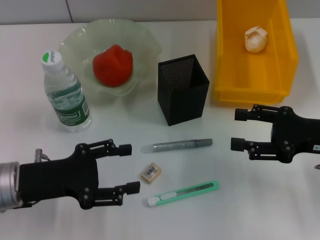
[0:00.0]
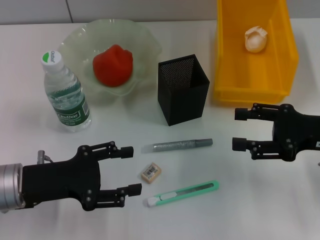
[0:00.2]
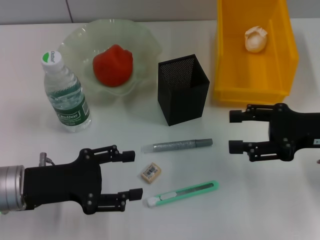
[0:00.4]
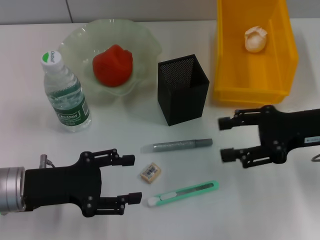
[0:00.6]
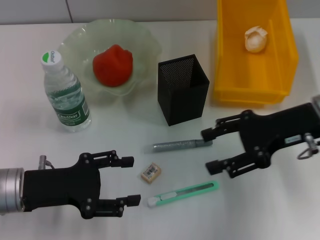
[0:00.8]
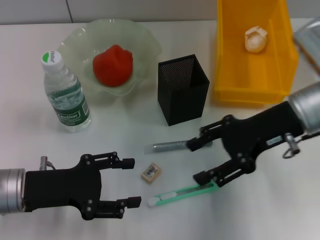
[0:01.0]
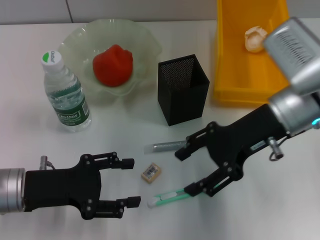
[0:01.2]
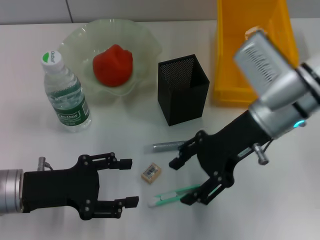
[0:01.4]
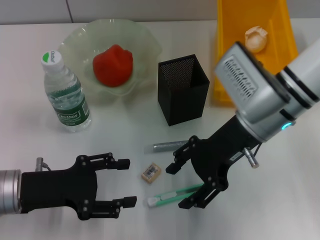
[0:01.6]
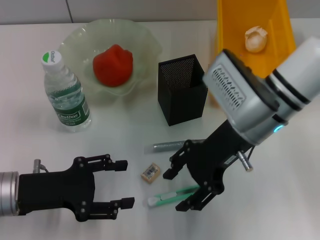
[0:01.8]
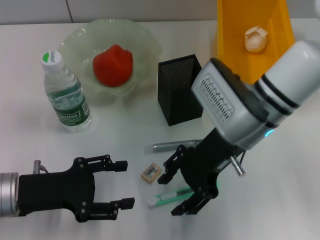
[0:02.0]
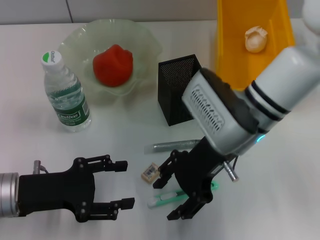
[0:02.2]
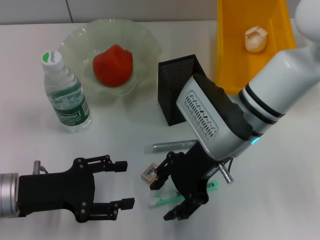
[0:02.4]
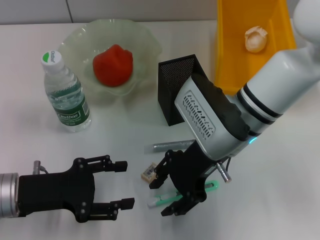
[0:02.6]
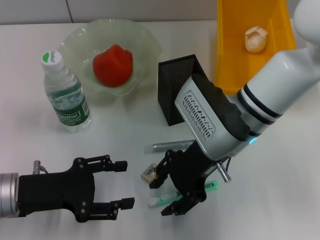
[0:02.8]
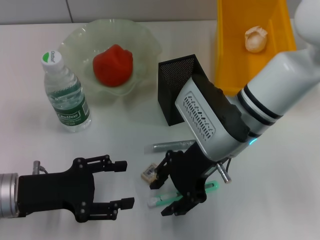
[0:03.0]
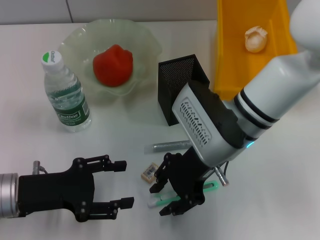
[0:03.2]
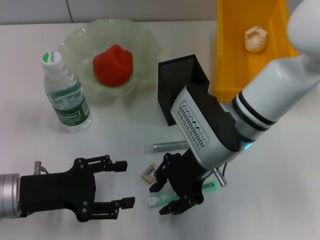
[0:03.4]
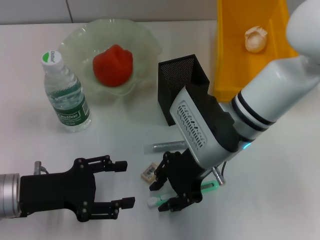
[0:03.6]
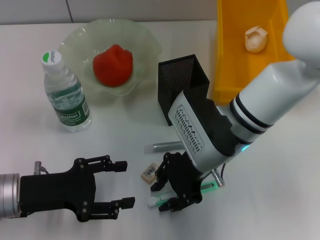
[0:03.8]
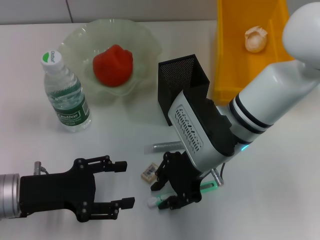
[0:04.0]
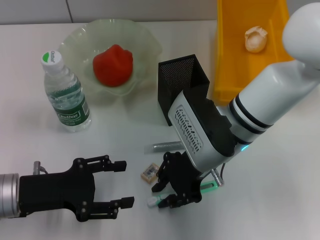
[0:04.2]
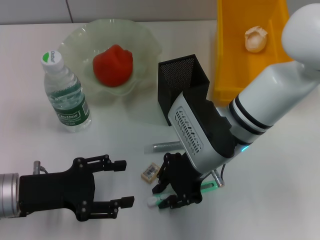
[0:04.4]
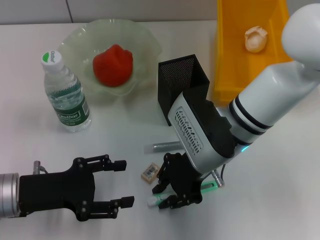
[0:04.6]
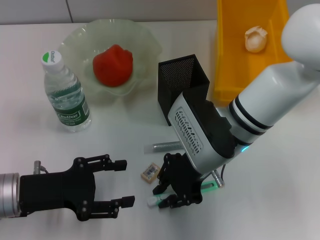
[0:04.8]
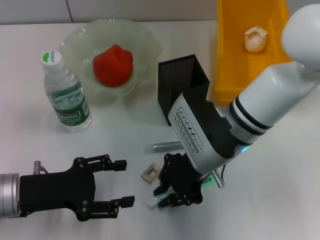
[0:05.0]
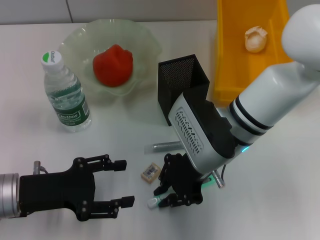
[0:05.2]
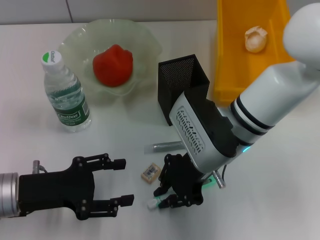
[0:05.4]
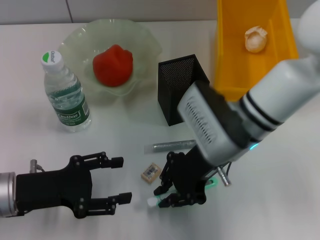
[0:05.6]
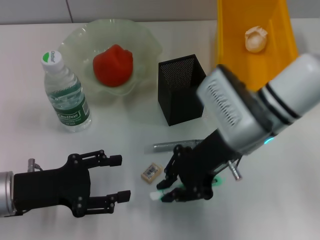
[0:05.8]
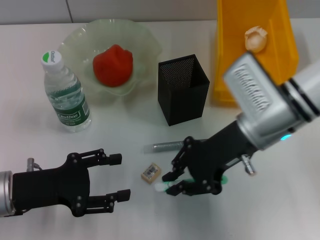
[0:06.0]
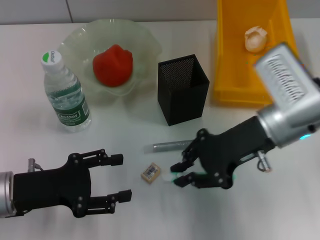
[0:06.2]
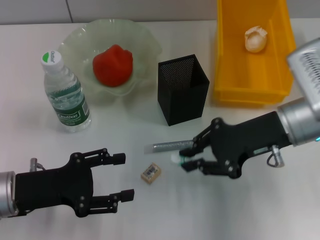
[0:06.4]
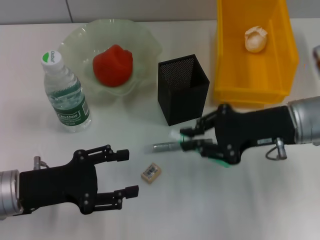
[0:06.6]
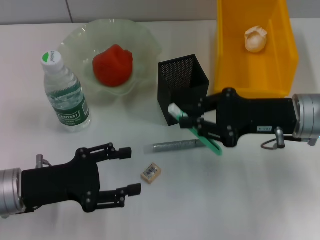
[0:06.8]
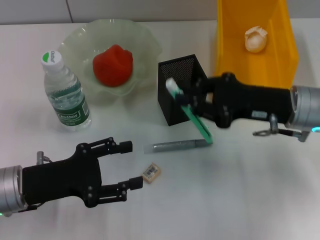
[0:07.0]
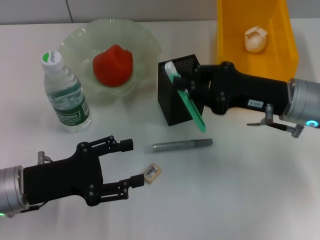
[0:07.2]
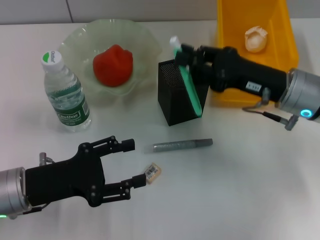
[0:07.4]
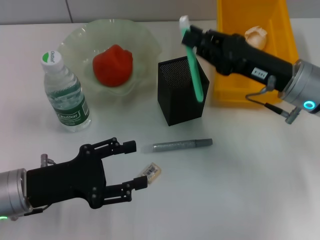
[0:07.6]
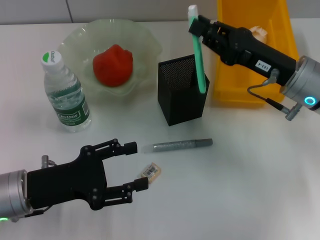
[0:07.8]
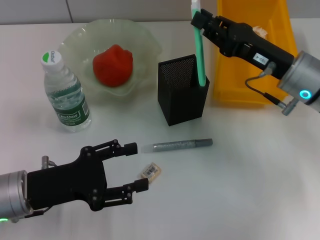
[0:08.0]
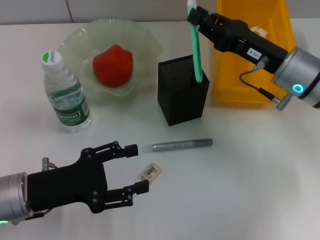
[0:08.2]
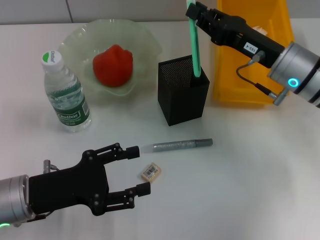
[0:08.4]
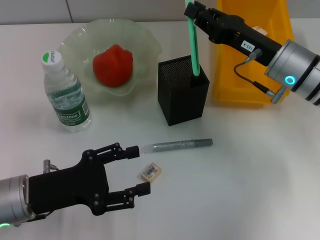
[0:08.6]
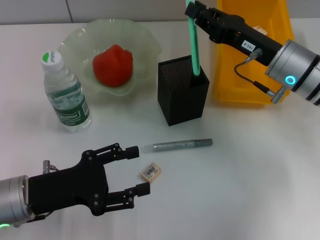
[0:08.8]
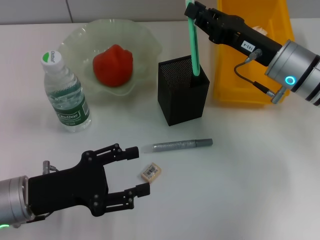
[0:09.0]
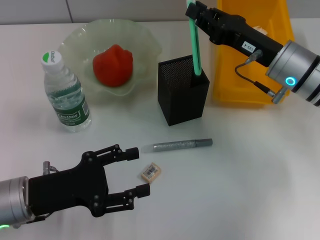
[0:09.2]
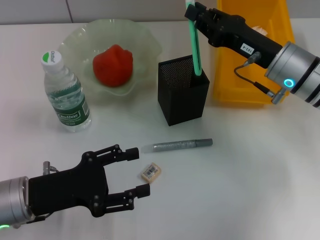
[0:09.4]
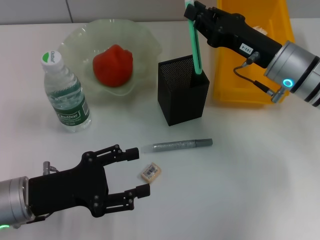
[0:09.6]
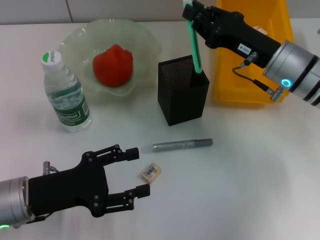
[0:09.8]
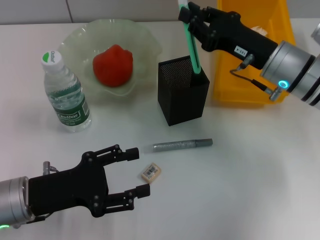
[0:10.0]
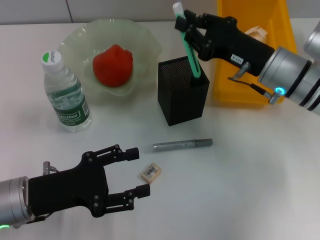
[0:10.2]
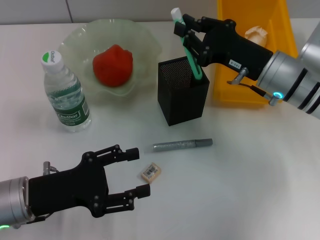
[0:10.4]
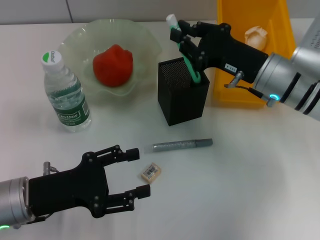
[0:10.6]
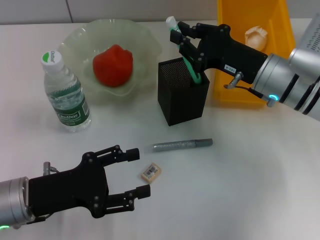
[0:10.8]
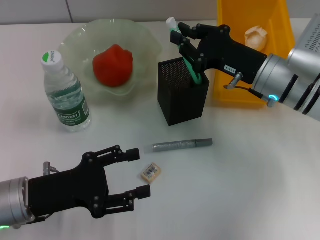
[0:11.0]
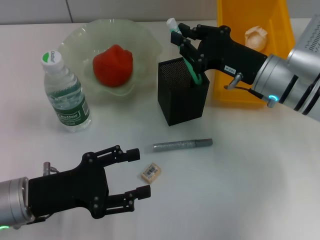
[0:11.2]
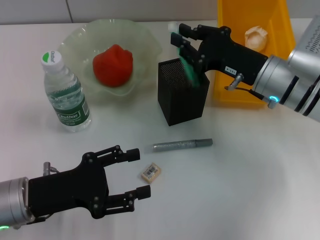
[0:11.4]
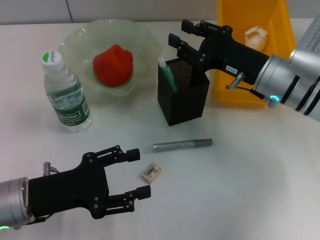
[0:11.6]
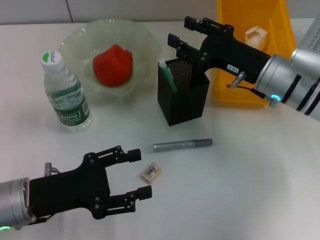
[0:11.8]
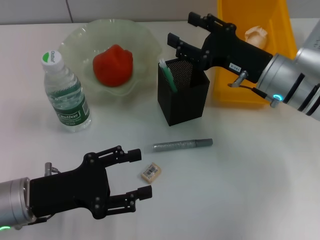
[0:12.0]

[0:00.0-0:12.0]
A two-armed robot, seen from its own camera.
Step, 0:00.0 to 0:05.4: Grab the blue utility knife with the right hand.
Step, 0:05.6 to 0:11.6: Place the blue utility knife into the pen holder with the right hand.
0:00.0 to 0:01.6: The right gripper goes about 15 cm to the left.
0:01.6 to 0:03.0: The grippers stay close to where they were, moving slightly.
0:03.0 to 0:04.4: The right gripper closes its fingers.
0:04.4 to 0:06.0: The right gripper shifts approximately 5 cm to the right.
0:06.0 to 0:07.6: The right gripper shifts some 5 cm to the right.
0:07.6 to 0:09.0: The grippers stay close to where they were, moving slightly.
0:10.4 to 0:12.0: The right gripper opens up.

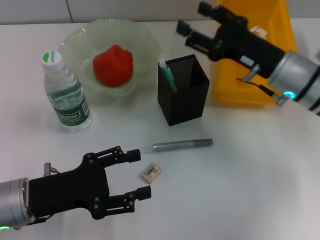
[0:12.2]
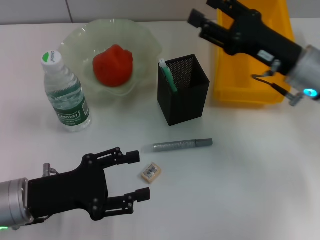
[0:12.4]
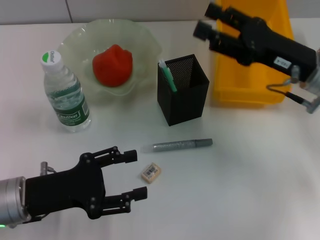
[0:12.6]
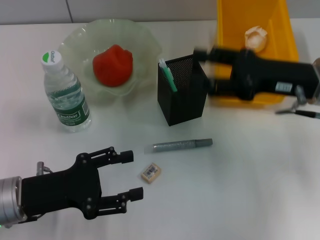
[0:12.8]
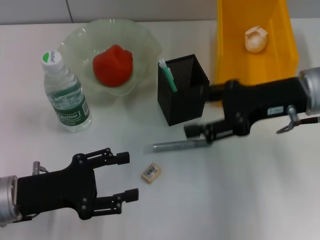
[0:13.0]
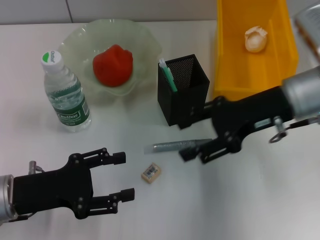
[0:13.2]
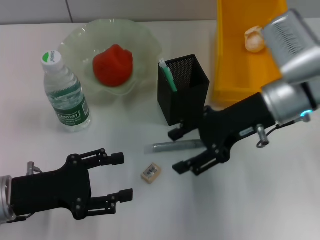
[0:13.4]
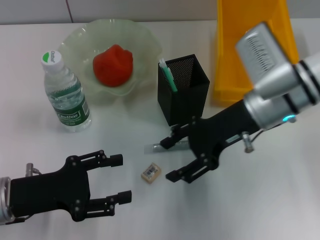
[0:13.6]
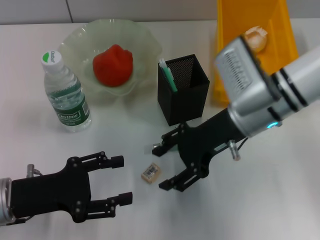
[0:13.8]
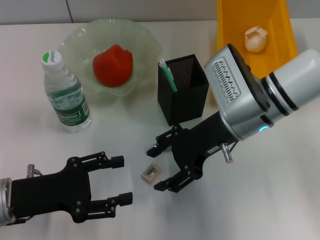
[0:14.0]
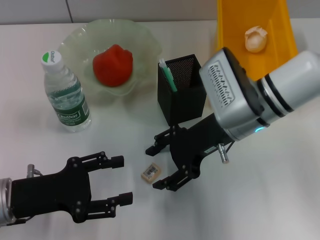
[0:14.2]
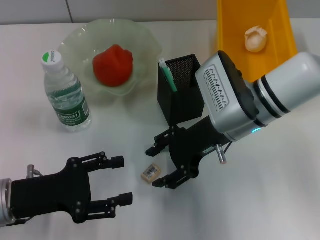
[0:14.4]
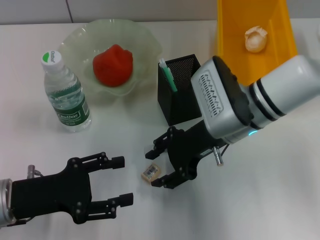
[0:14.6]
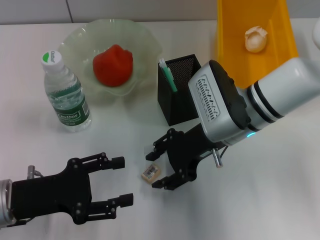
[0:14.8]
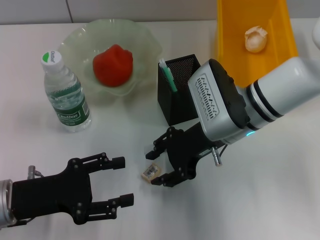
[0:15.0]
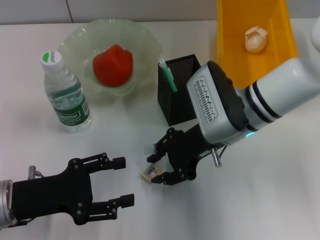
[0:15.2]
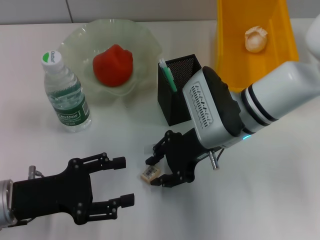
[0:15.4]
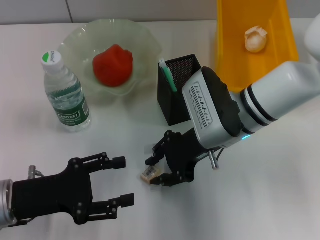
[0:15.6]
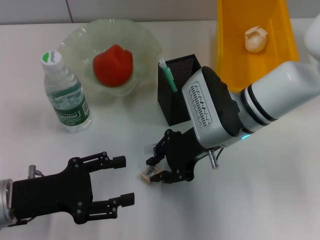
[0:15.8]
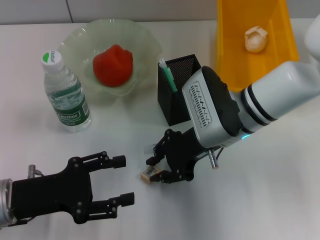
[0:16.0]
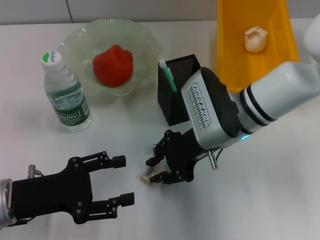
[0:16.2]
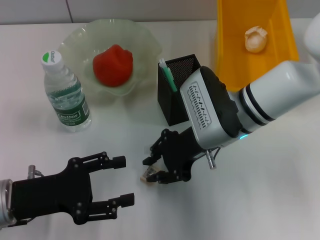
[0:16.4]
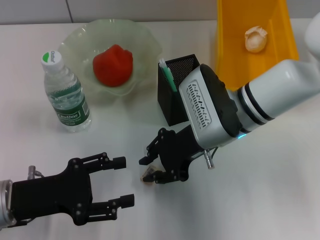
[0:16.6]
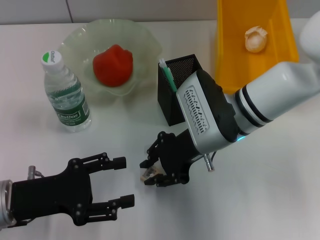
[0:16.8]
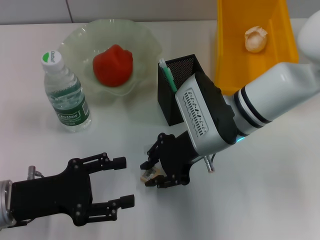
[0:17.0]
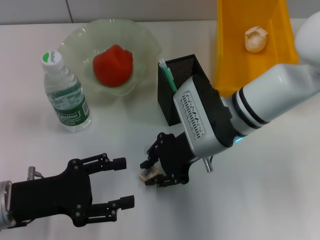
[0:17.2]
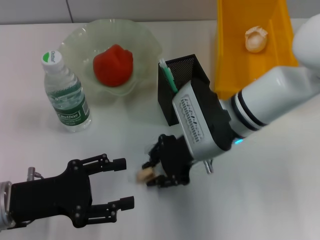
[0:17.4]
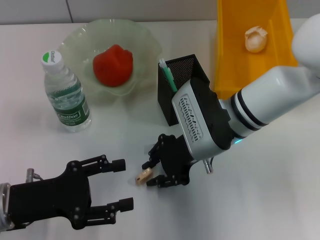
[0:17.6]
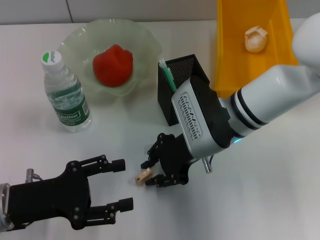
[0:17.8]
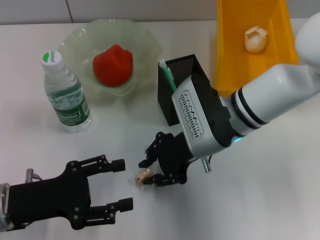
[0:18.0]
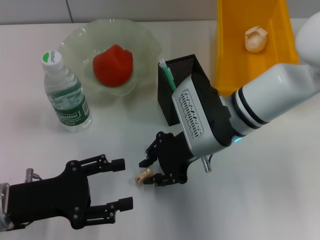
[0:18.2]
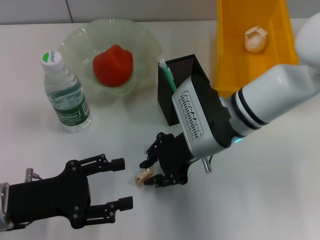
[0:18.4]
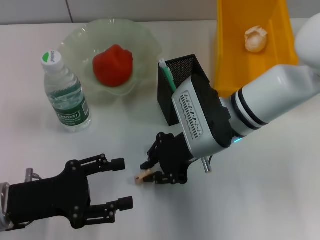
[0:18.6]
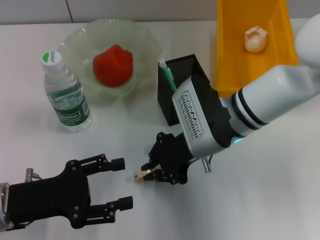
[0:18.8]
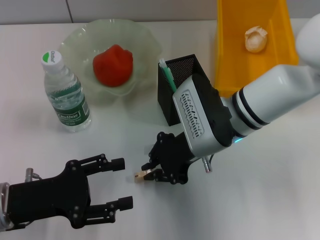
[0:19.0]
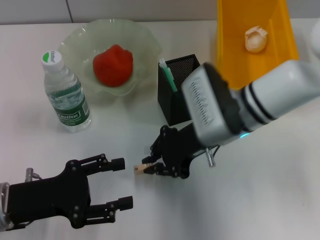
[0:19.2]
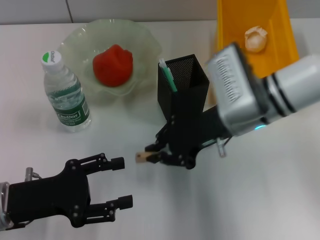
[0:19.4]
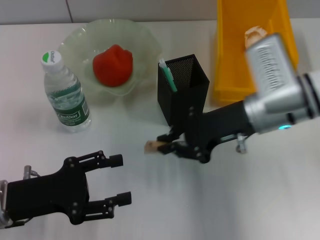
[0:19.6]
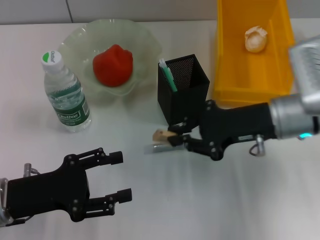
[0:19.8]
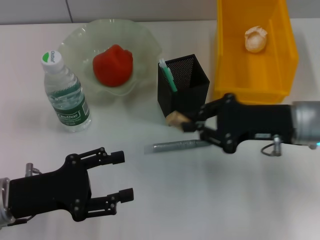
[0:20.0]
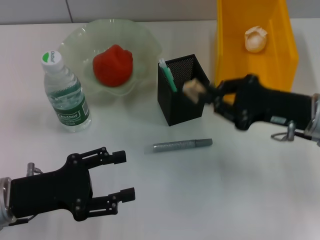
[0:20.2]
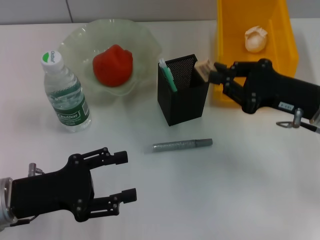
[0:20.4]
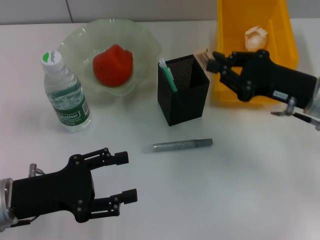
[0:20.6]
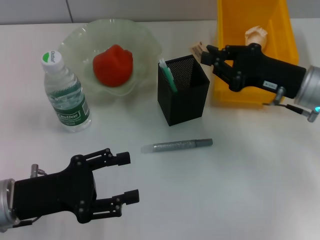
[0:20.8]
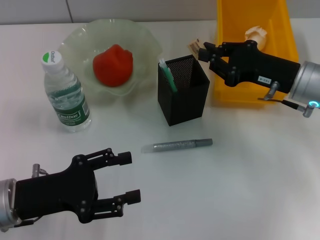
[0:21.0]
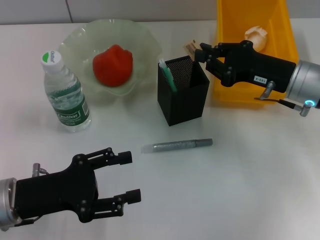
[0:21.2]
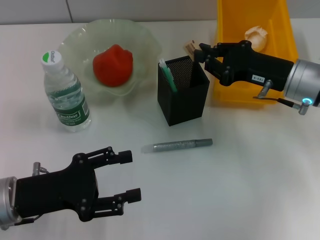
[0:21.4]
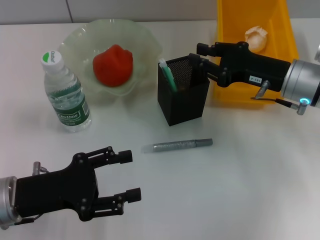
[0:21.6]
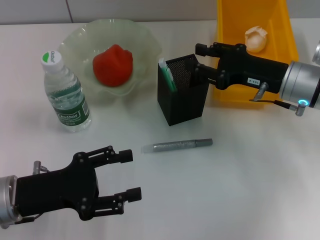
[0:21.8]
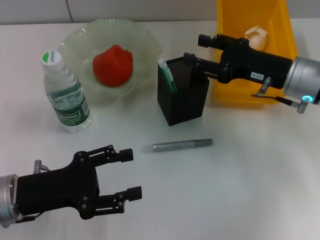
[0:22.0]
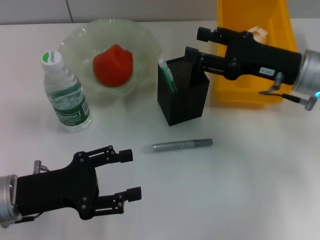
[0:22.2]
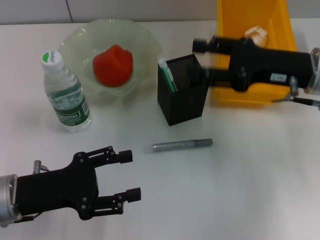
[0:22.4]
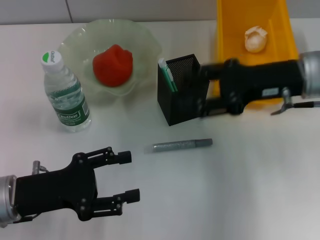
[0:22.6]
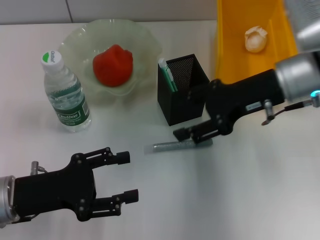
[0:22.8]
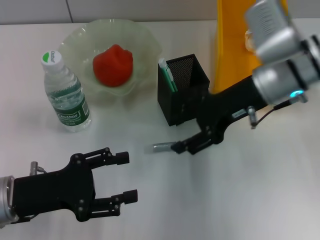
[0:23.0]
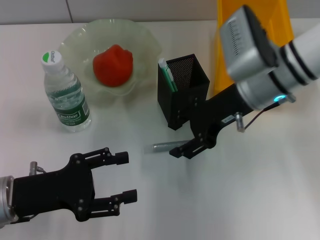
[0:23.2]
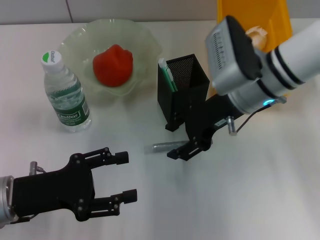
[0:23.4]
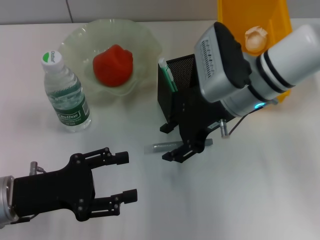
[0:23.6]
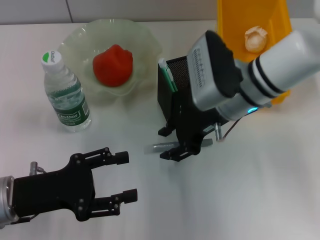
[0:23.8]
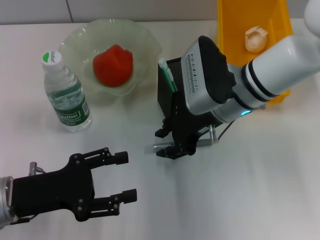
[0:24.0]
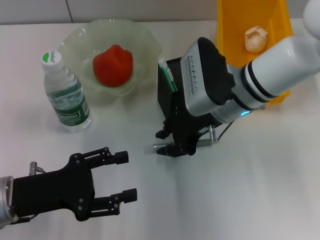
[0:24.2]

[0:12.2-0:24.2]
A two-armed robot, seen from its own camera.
Step, 0:12.2 to 0:19.0: Grab the eraser with the right hand.
Step, 0:19.2 to 0:21.4: Put the eraser into the pen holder with the right hand.
0:12.2 to 0:13.8: The right gripper travels to the left by some 5 cm.
0:13.8 to 0:15.2: The grippers move only a little.
0:15.2 to 0:16.6: Neither gripper changes place.
0:16.6 to 0:18.2: The grippers stay close to where they were, moving slightly.
0:18.2 to 0:19.8: The right gripper is displaced to the right by about 10 cm.
0:21.2 to 0:22.6: The right gripper shifts some 5 cm upward, and opens.
0:22.6 to 0:24.2: The right gripper shifts some 10 cm to the left.
